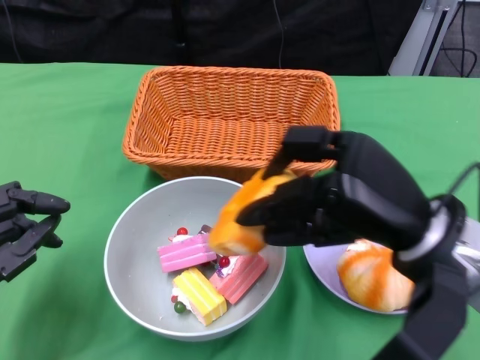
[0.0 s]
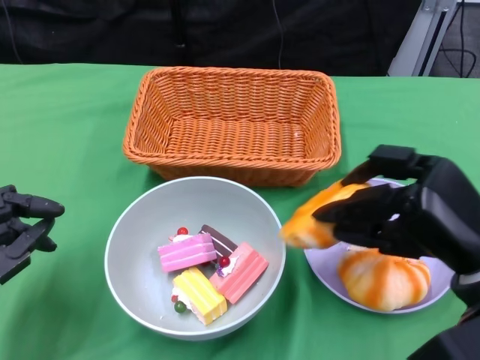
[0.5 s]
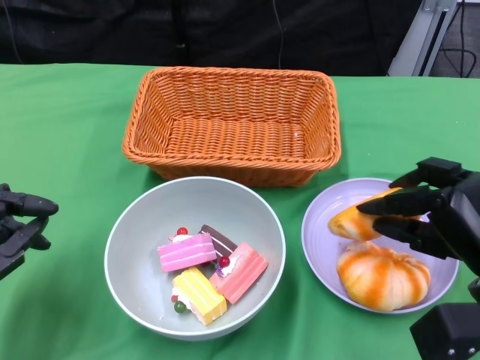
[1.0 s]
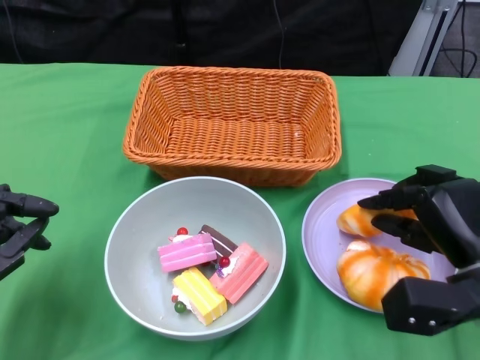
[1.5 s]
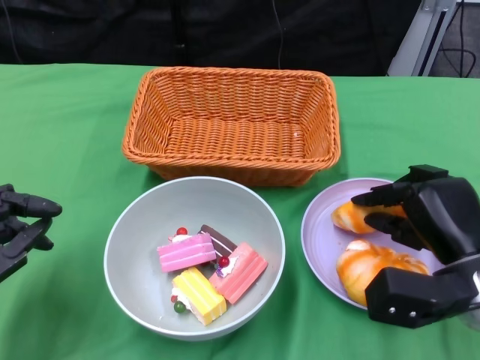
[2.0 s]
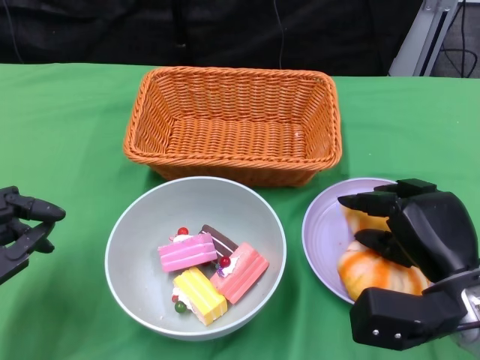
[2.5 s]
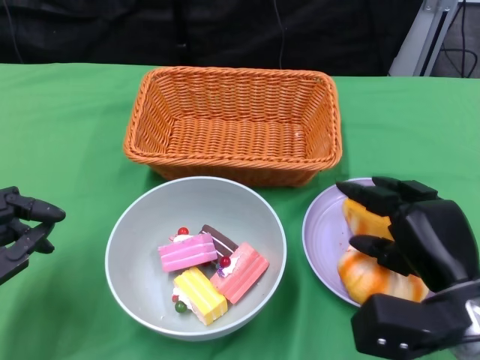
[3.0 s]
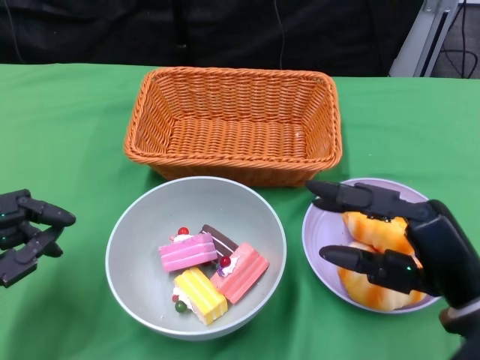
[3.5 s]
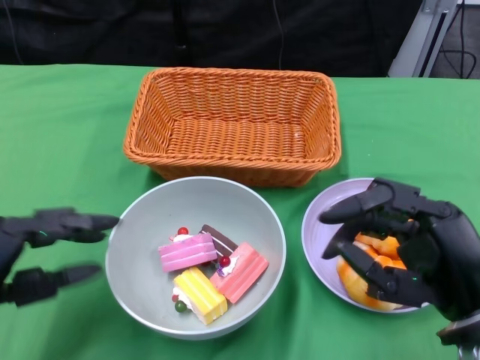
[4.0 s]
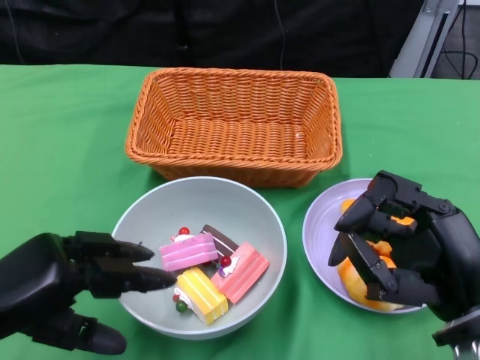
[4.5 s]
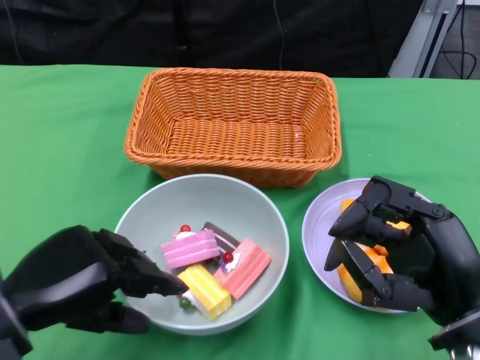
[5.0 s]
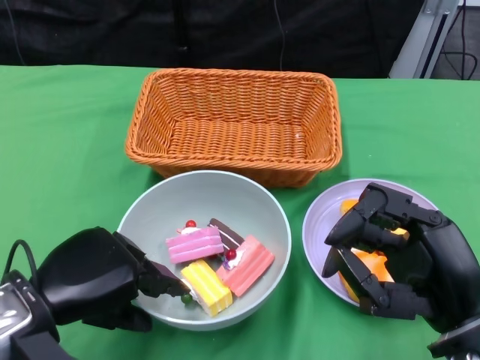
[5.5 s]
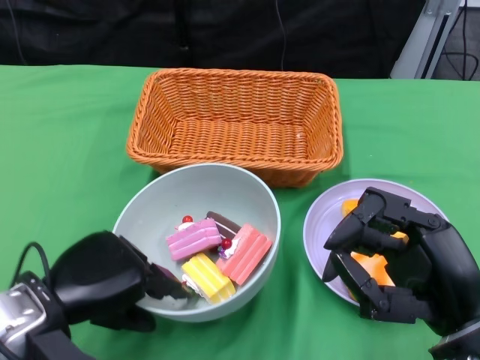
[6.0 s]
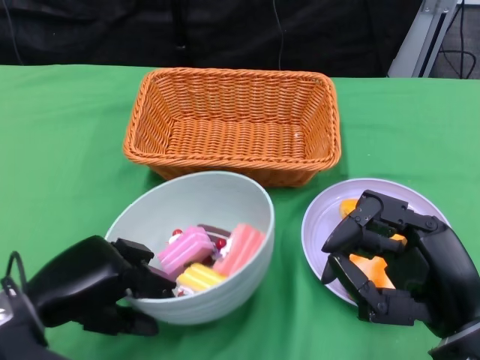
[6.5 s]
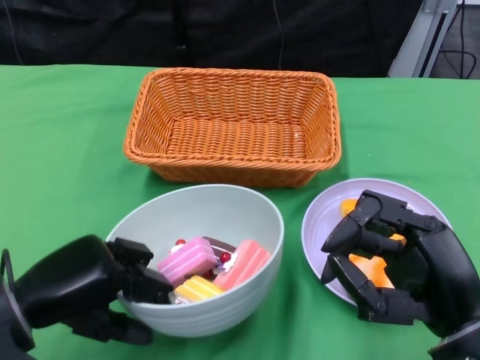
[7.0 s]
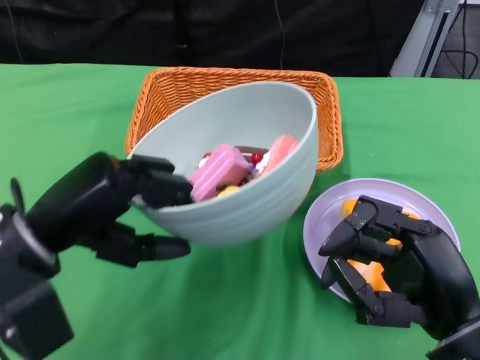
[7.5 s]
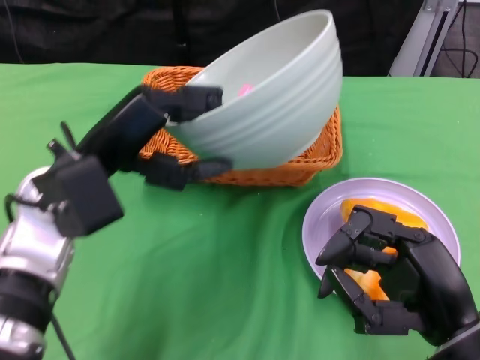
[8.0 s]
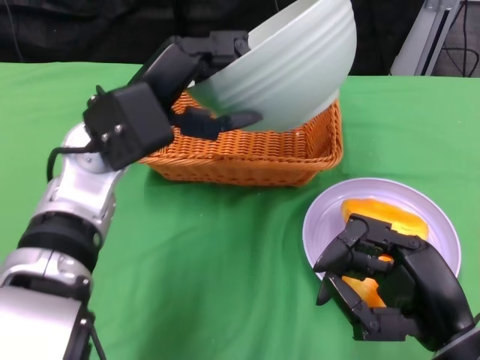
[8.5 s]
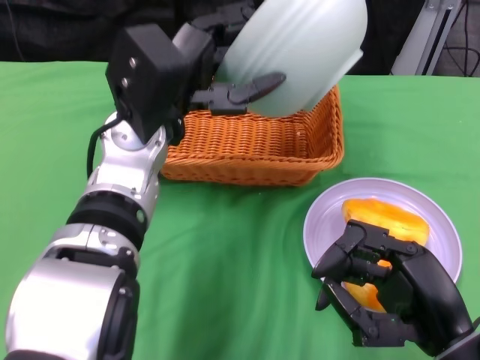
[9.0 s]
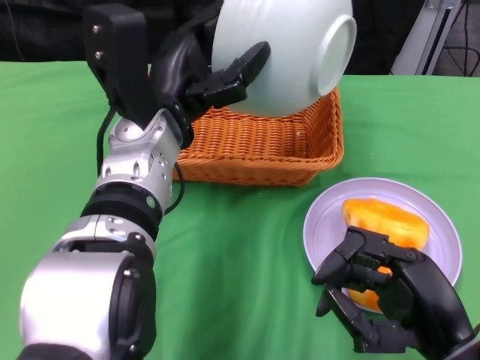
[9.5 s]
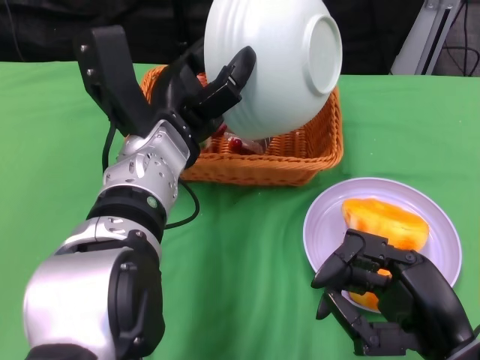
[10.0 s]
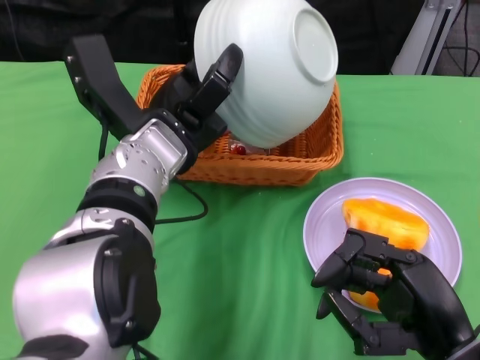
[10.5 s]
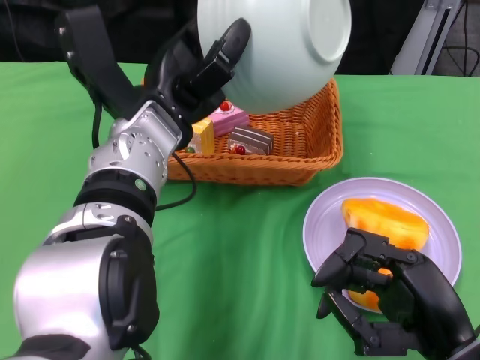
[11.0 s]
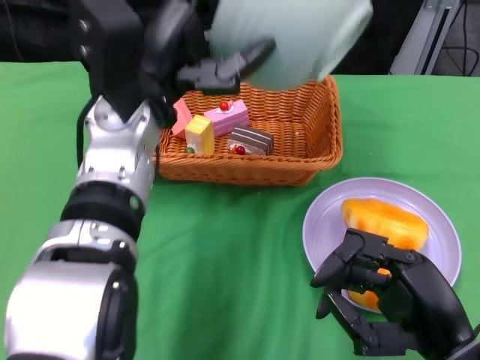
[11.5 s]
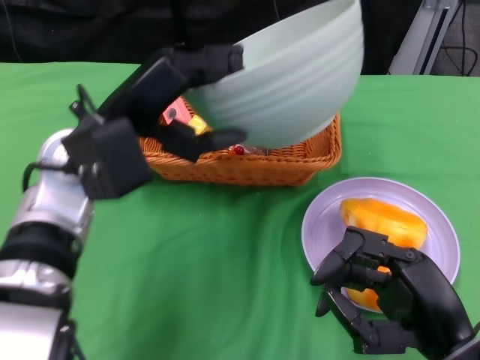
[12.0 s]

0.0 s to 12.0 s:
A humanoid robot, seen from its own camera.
Step, 0.0 to 3.0 s: Pick up the bread with the right gripper and place it on the plate.
Step, 3.5 to 6.0 s: Grasp the bowl with the left gripper.
Step, 6.5 to 11.0 s: Pour the cake into the basket with the left gripper.
0.0 to 2.0 s: The right hand shifts roughly 10 cm downward and to the right.
2.0 to 4.0 s: The right hand shifts about 10 cm backward and upward.
4.0 to 6.0 s: The left hand travels to the right by about 5 cm.
6.0 to 8.0 s: The left hand travels upward and forward by roughly 10 cm.
8.0 to 10.0 s: The left hand moves to the right, some 10 cm.
10.0 to 12.0 s: The left hand is displaced to the left by approximately 5 cm.

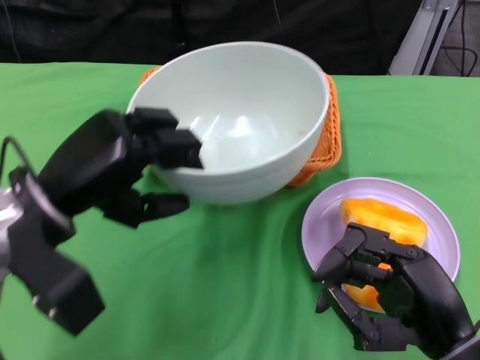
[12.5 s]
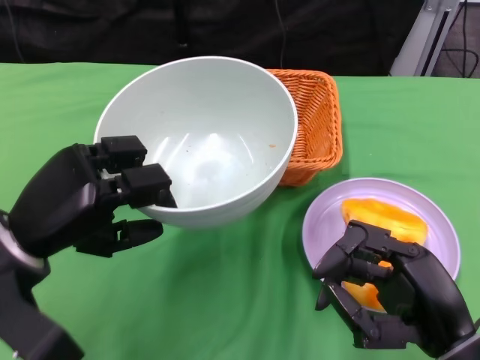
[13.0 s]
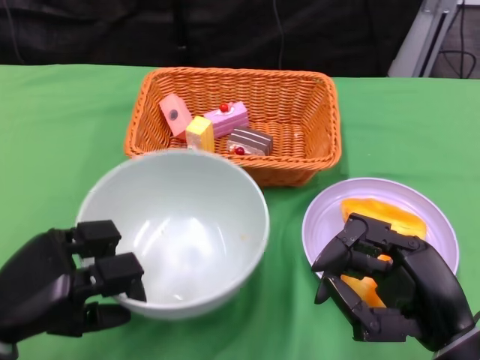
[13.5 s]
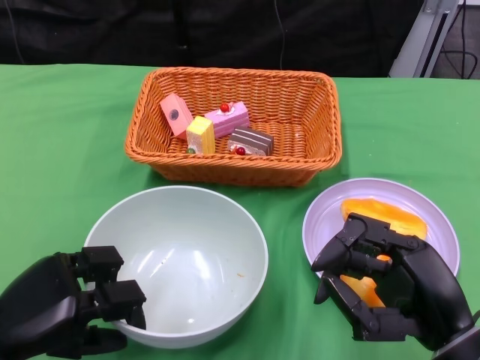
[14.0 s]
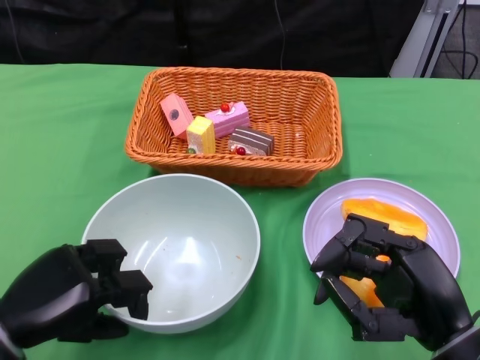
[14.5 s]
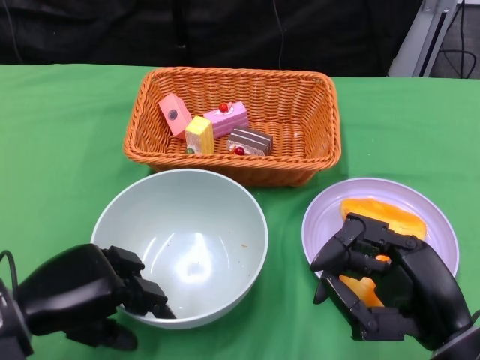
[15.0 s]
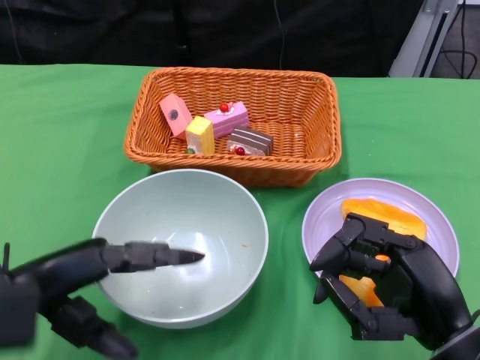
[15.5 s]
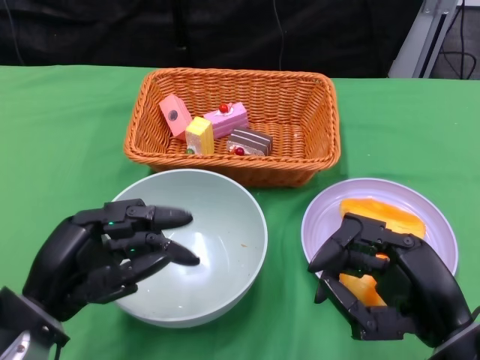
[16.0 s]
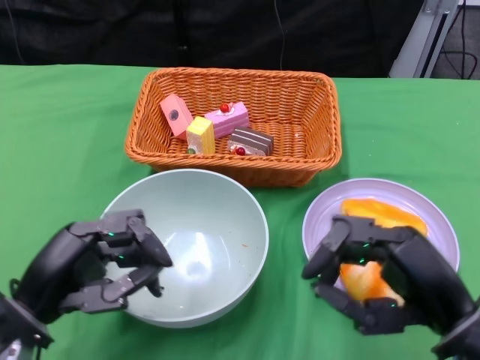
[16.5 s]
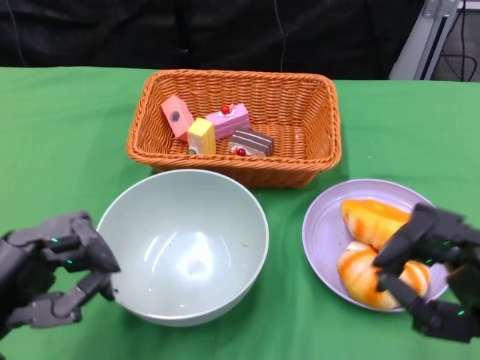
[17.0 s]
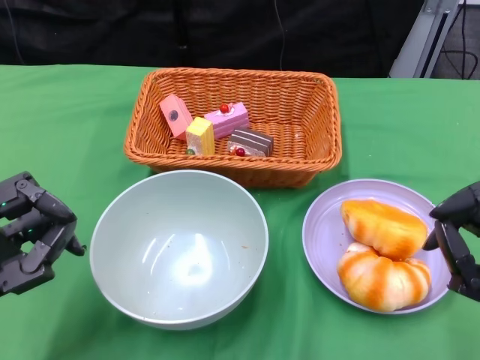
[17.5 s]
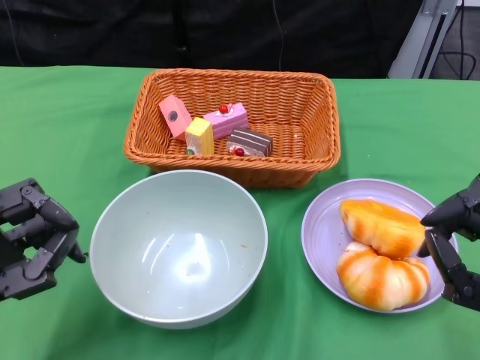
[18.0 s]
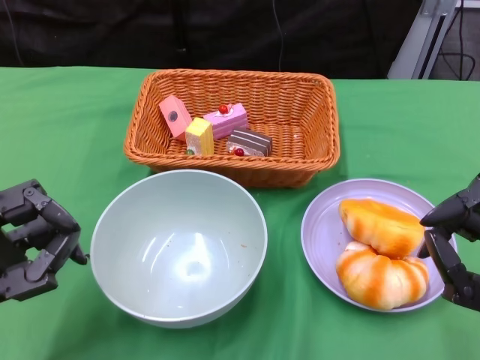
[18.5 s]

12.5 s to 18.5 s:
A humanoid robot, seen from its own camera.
Step, 12.5 to 15.0 s: Place the bowl on the table with the left gripper.
12.5 to 14.5 s: The left hand travels downward and backward by roughly 10 cm.
16.5 to 18.5 s: The right hand travels to the right by some 5 cm. The left hand ends up roughly 5 cm from where it was.

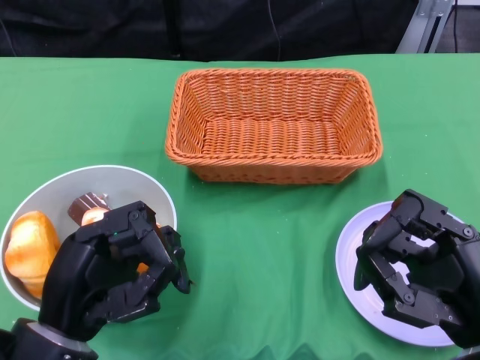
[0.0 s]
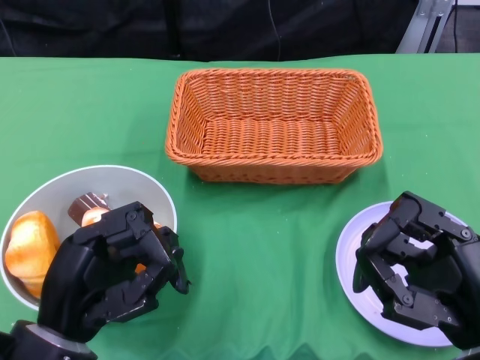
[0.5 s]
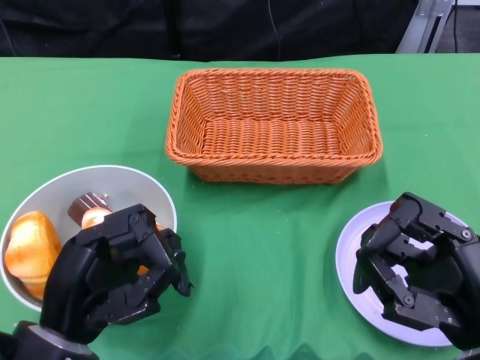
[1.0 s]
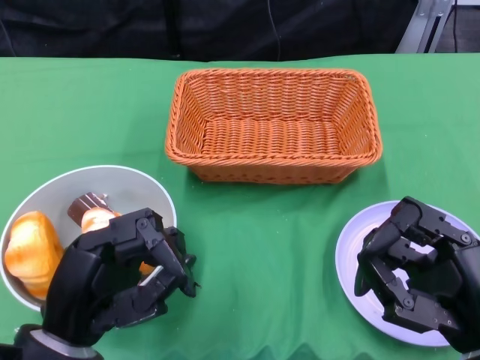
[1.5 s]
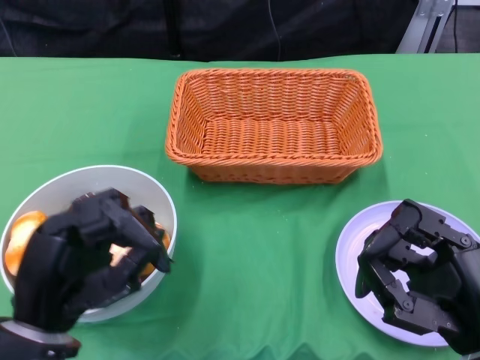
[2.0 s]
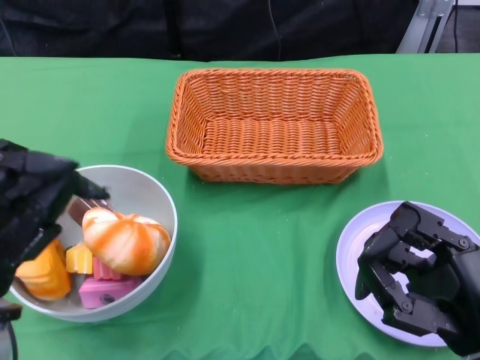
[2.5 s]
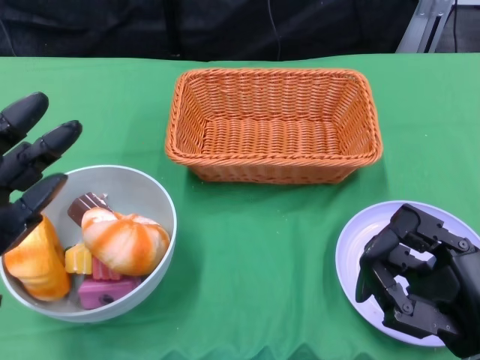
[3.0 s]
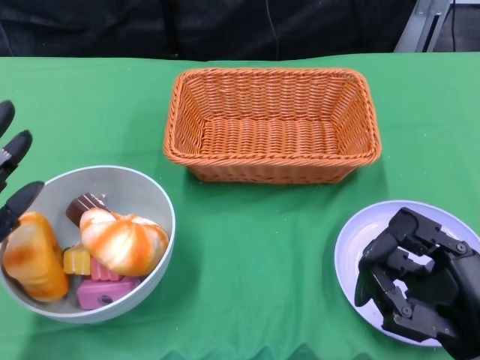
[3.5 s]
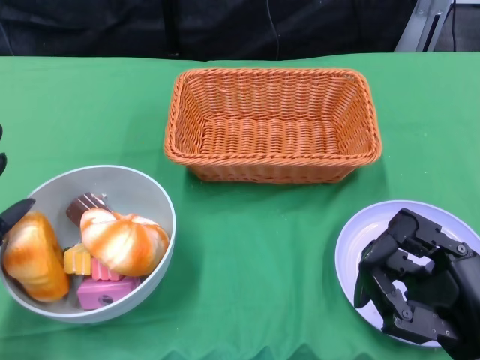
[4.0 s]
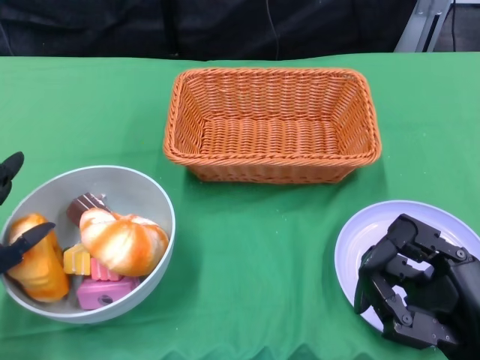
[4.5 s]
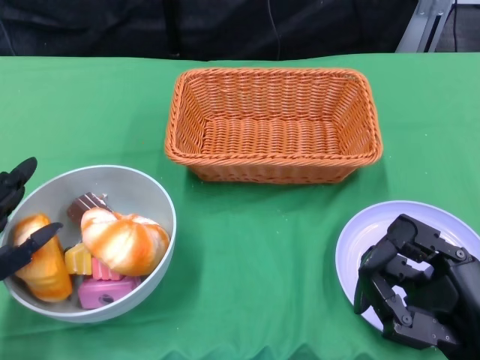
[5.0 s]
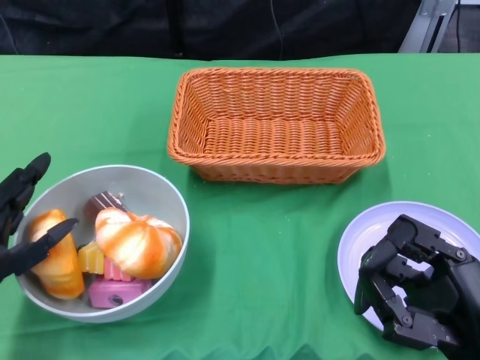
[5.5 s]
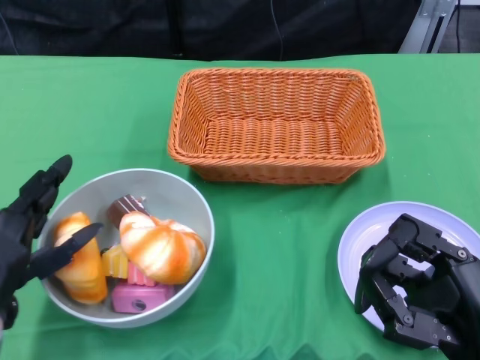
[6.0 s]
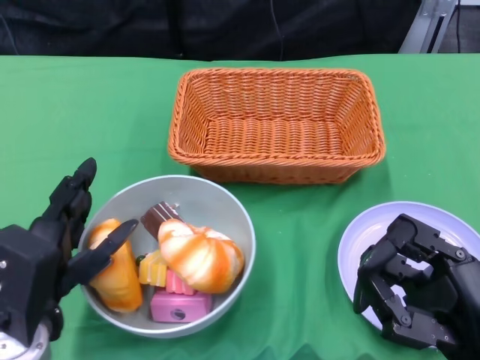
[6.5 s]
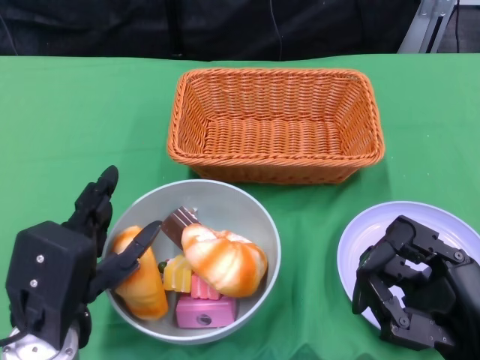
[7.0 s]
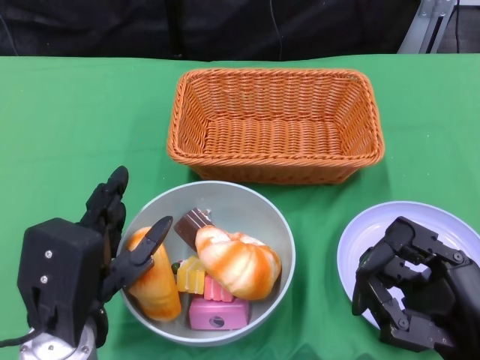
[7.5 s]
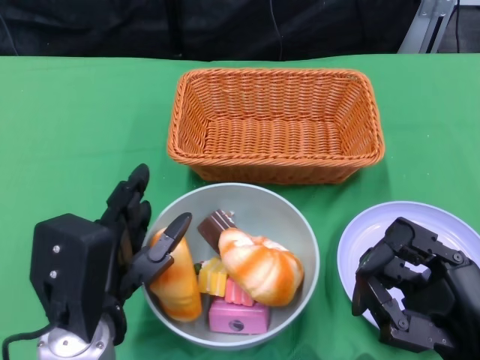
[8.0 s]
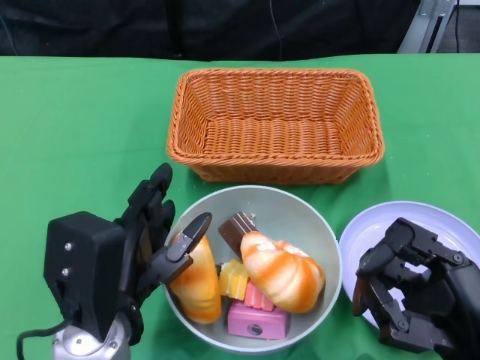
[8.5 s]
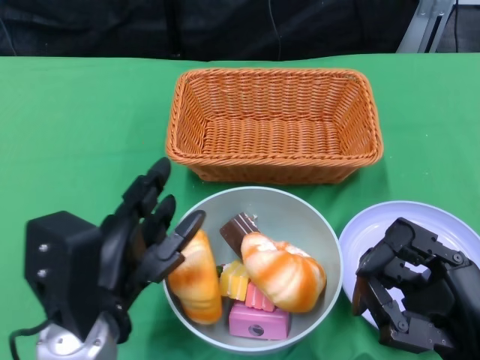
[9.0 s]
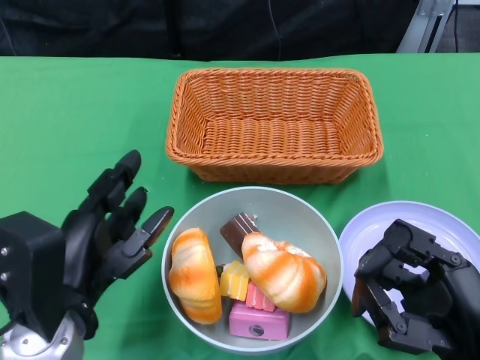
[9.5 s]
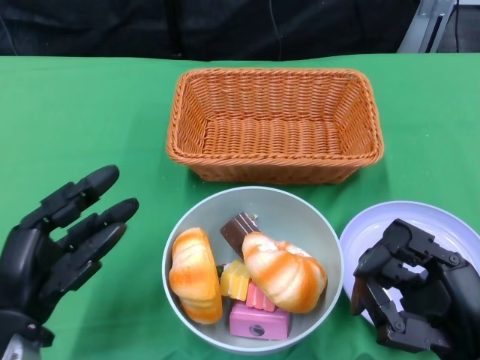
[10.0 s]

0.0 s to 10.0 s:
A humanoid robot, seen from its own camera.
2.0 to 4.0 s: The left hand moves to the left, roughly 10 cm.
6.0 to 8.0 s: The left hand heads to the right, covering about 10 cm.
8.0 to 10.0 s: The left hand shifts some 5 cm to the left.
